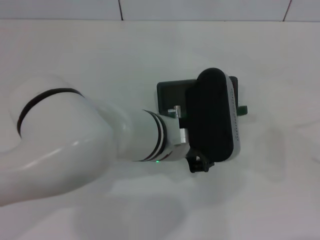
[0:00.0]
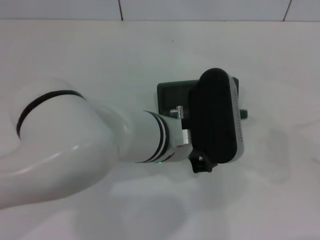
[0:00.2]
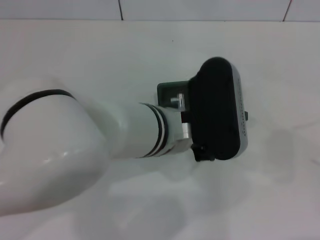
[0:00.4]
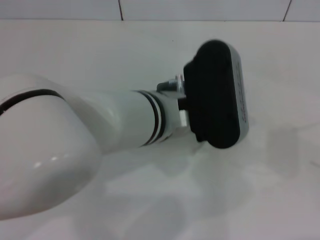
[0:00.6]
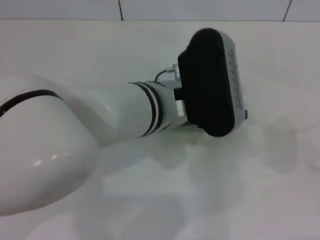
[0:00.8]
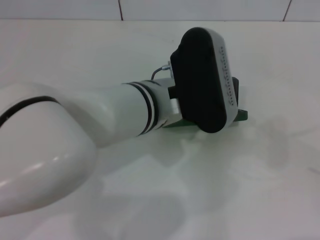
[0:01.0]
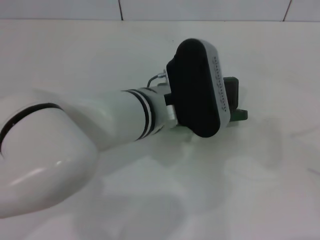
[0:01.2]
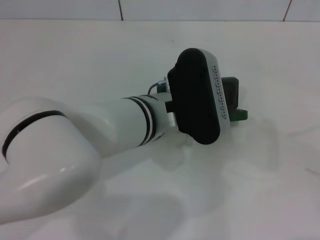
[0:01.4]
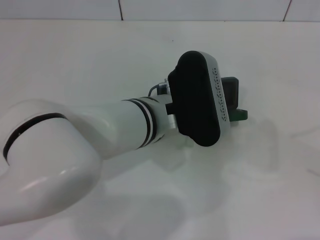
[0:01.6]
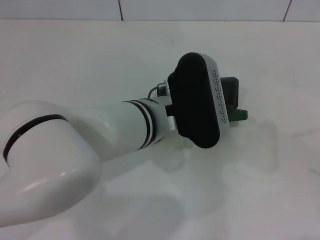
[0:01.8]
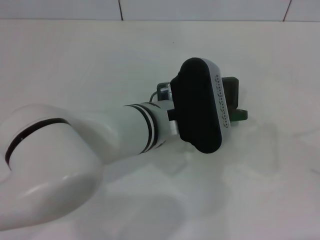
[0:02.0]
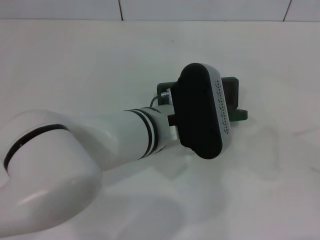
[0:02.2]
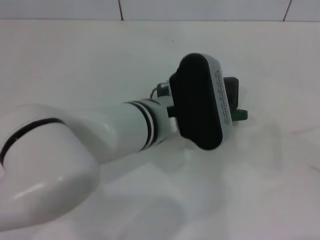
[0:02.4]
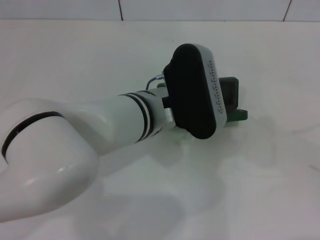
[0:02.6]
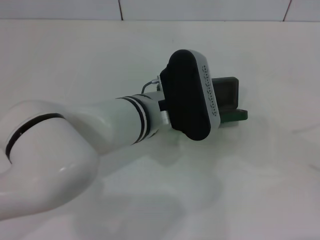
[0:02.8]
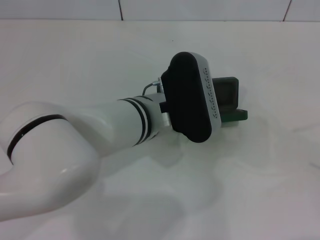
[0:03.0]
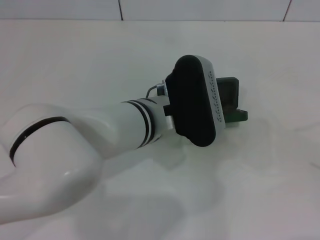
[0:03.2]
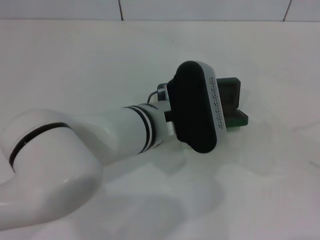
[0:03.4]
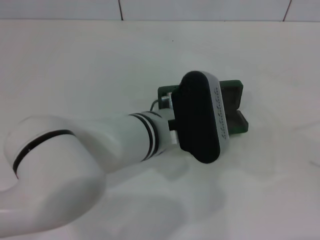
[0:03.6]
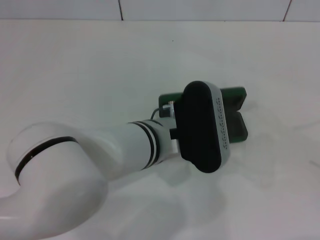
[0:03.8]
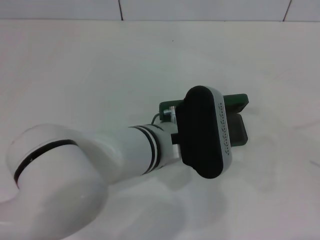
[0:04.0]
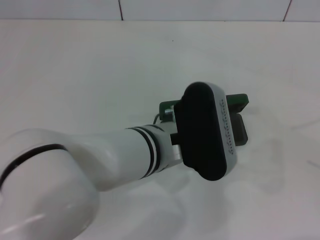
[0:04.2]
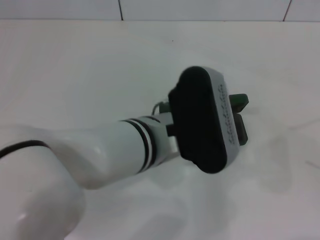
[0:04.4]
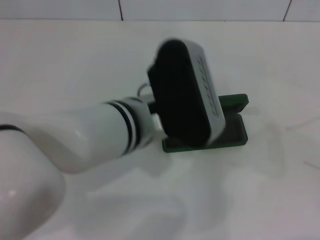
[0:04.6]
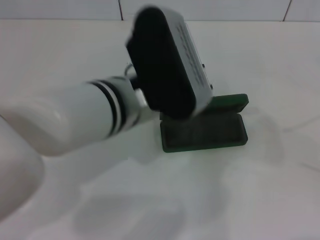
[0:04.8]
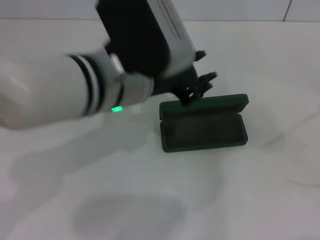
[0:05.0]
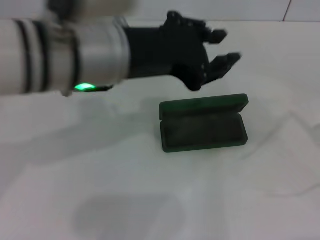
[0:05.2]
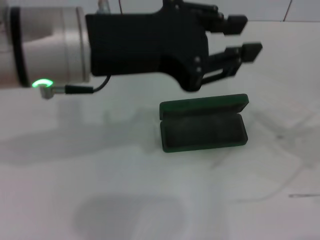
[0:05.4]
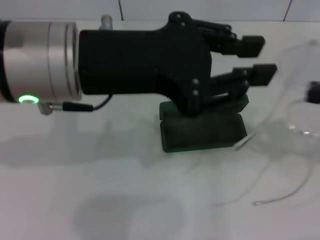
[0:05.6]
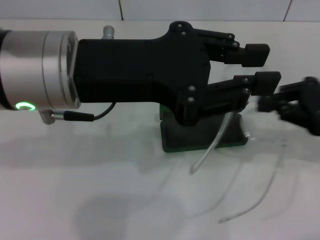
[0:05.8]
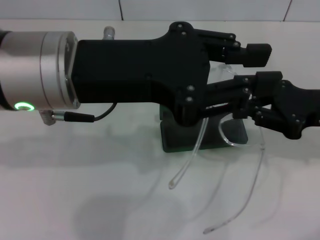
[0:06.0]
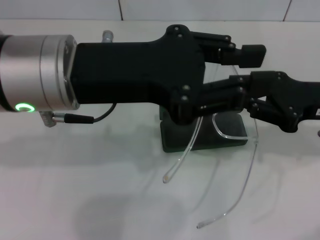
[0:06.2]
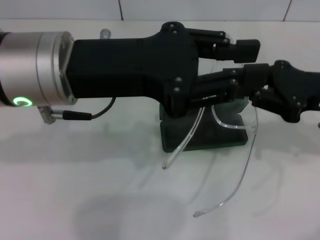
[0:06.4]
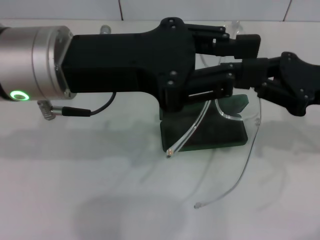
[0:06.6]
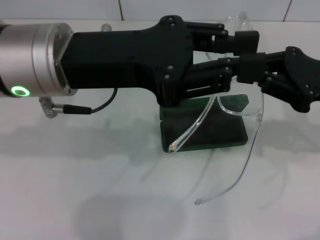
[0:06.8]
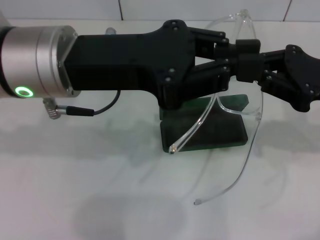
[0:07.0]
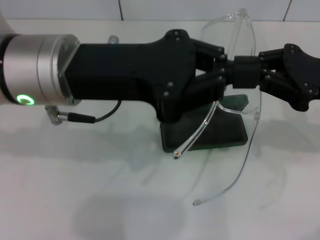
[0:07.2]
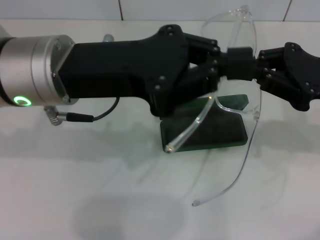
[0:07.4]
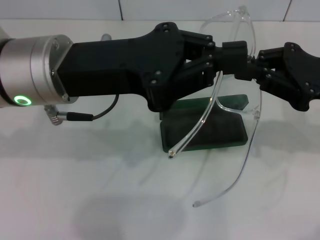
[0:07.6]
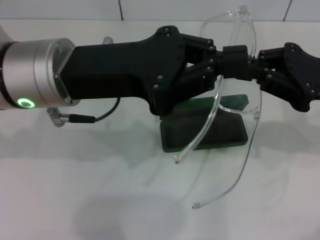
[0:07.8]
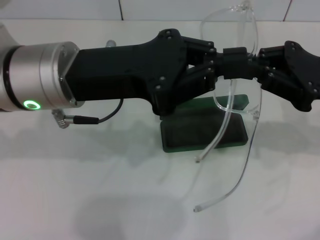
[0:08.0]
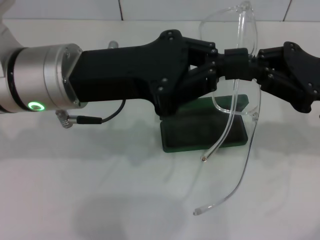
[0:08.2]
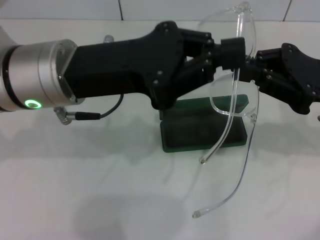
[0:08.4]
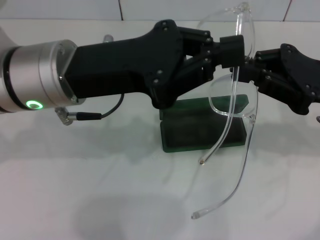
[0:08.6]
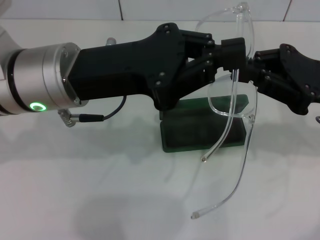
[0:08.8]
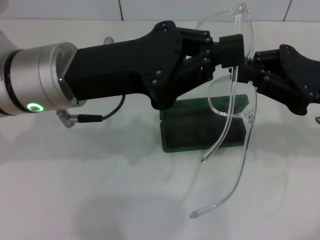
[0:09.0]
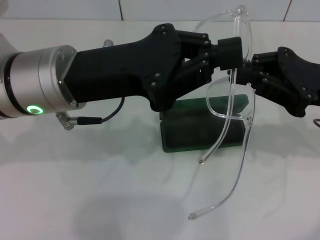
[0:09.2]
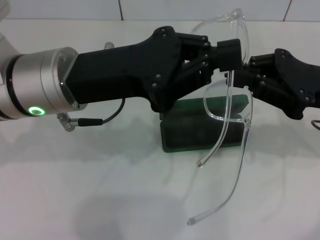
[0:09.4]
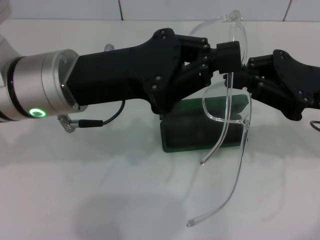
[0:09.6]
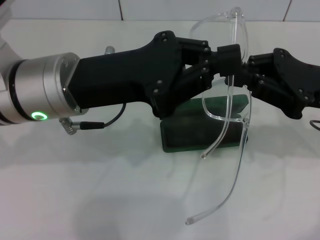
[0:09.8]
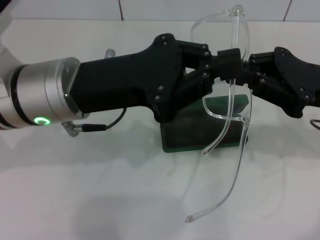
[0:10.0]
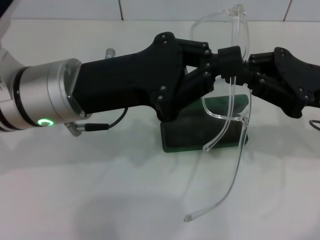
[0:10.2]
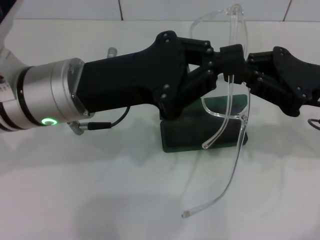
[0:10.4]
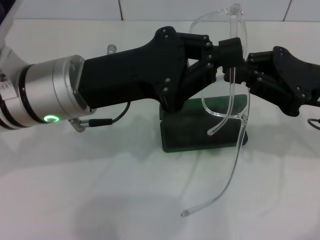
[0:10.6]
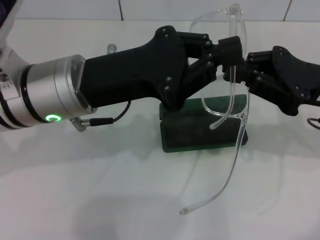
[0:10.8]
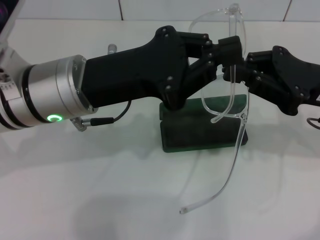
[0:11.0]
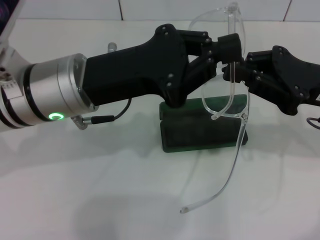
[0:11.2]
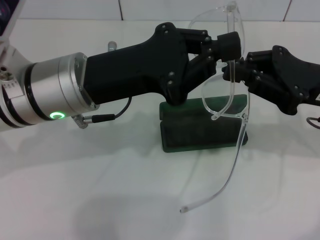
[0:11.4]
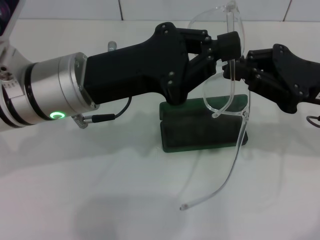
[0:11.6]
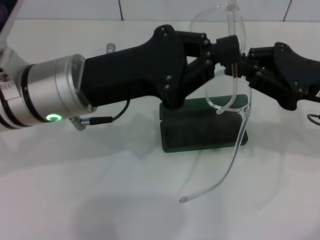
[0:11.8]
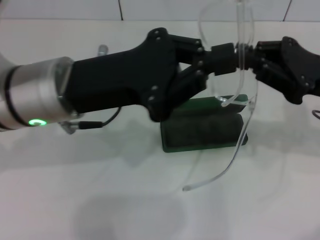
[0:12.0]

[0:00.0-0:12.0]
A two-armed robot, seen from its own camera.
Step, 0:00.0 to 0:04.6: Place the glasses case in the center of the table with your left hand.
0:00.0 to 0:03.0: The grippers move only a little.
0:03.0 to 0:04.4: The left gripper shifts by about 5 cm.
0:04.4 to 0:06.0: The left gripper shifts approximately 15 cm upward and to the left. Meanwhile the right gripper is displaced to the left and forward by approximately 25 cm.
0:06.0 to 0:07.6: The left gripper closes up.
0:07.6 to 0:12.0: The grippers make only small movements.

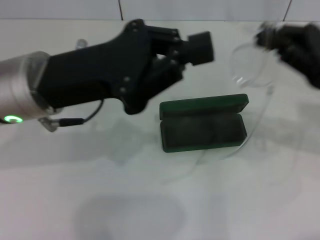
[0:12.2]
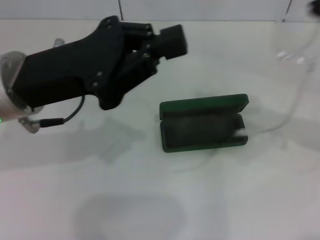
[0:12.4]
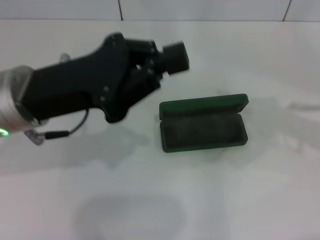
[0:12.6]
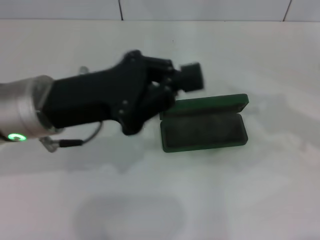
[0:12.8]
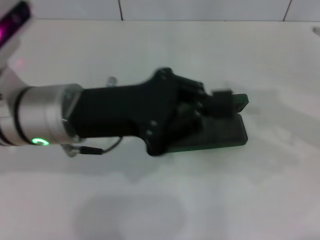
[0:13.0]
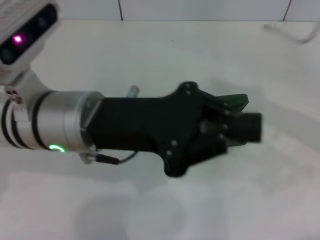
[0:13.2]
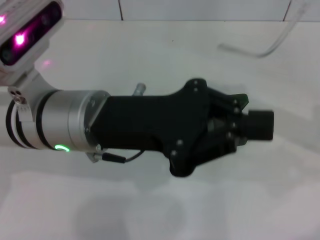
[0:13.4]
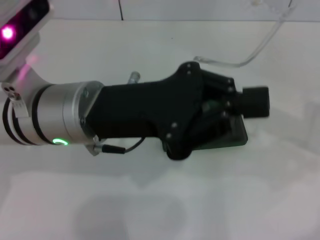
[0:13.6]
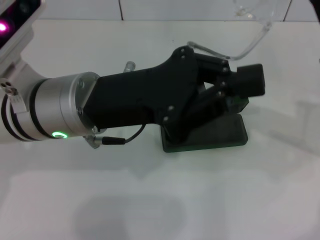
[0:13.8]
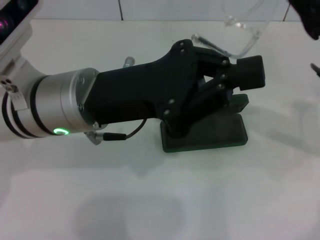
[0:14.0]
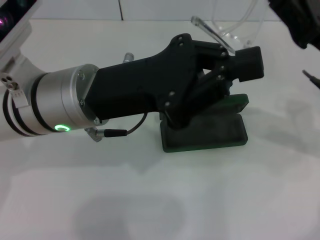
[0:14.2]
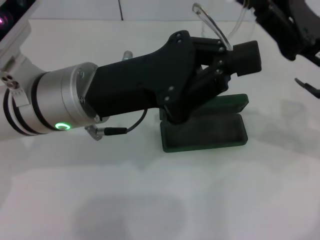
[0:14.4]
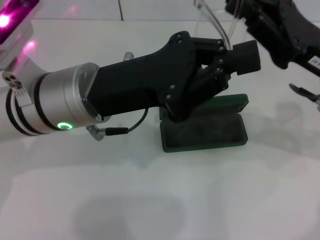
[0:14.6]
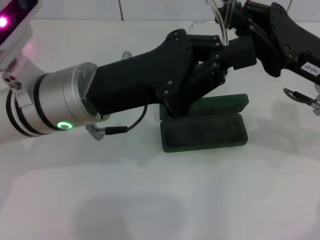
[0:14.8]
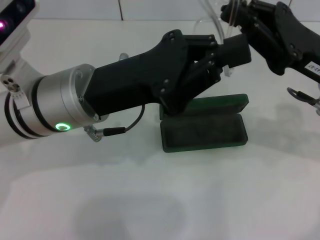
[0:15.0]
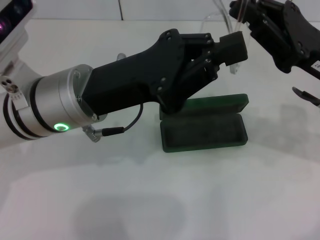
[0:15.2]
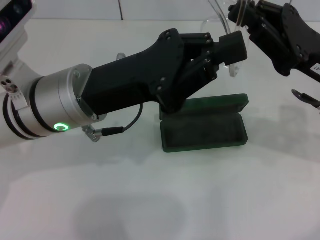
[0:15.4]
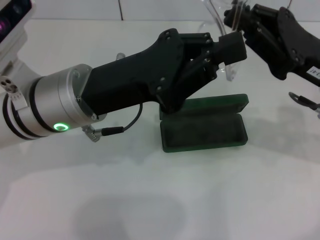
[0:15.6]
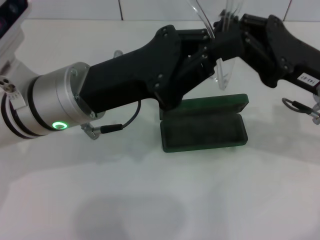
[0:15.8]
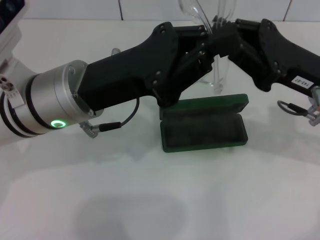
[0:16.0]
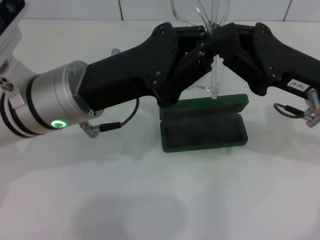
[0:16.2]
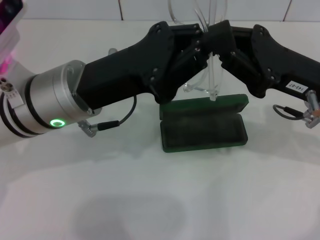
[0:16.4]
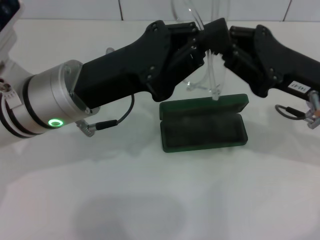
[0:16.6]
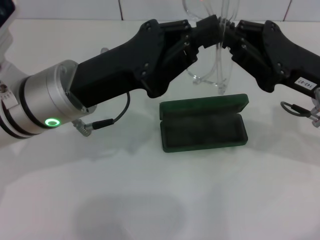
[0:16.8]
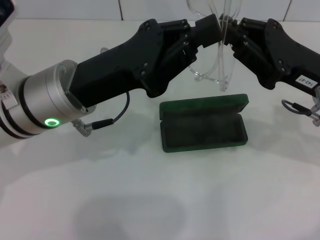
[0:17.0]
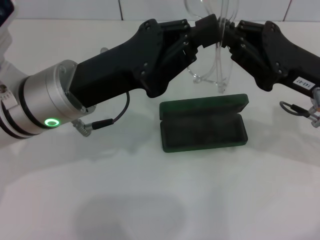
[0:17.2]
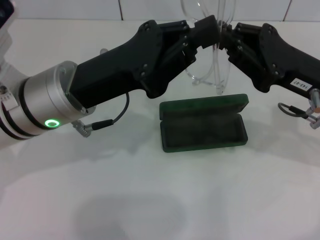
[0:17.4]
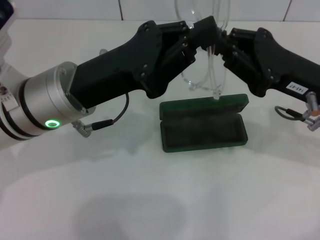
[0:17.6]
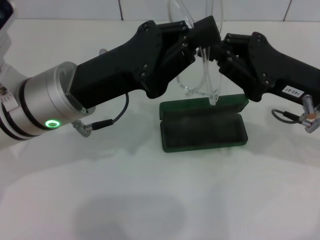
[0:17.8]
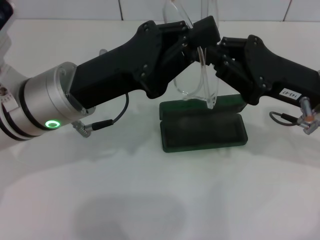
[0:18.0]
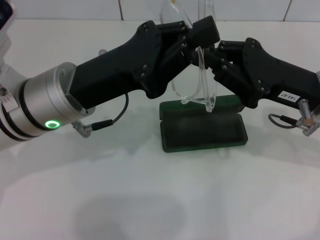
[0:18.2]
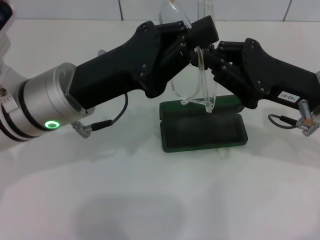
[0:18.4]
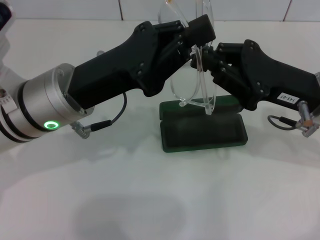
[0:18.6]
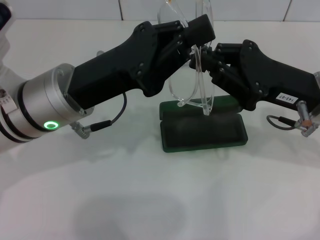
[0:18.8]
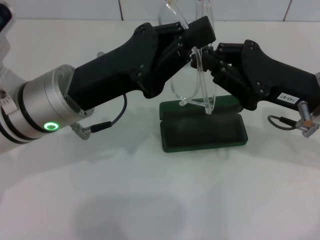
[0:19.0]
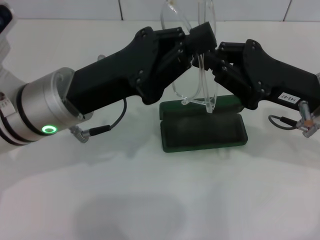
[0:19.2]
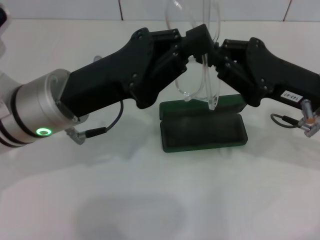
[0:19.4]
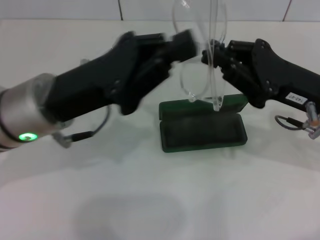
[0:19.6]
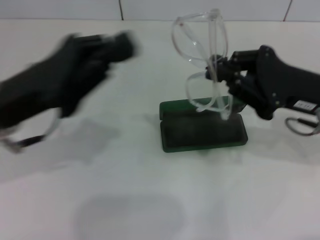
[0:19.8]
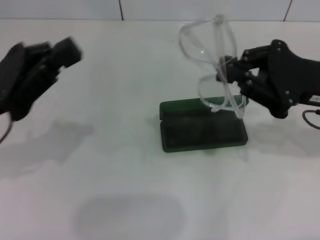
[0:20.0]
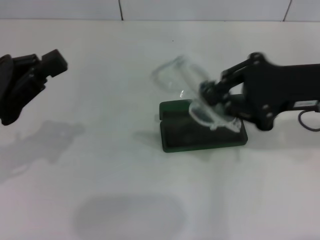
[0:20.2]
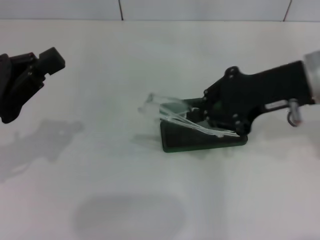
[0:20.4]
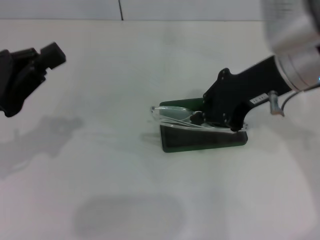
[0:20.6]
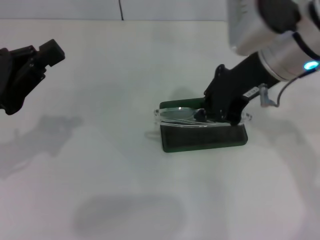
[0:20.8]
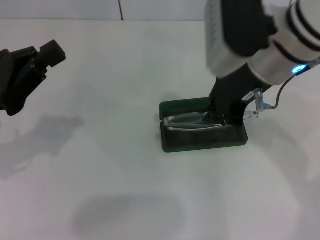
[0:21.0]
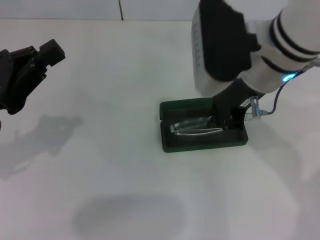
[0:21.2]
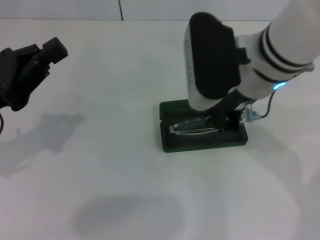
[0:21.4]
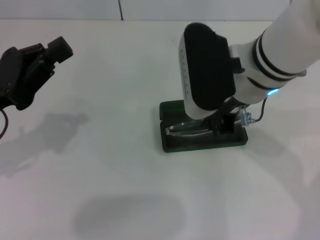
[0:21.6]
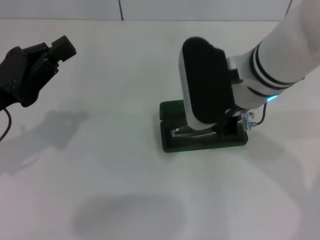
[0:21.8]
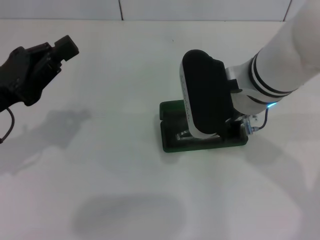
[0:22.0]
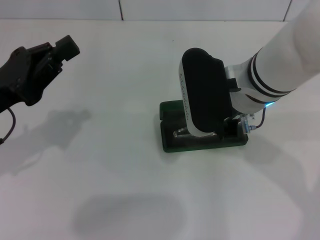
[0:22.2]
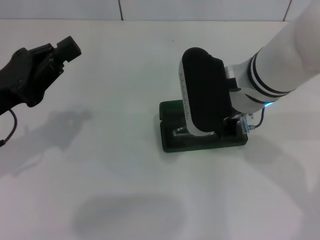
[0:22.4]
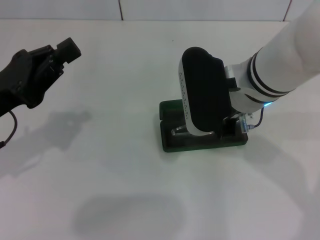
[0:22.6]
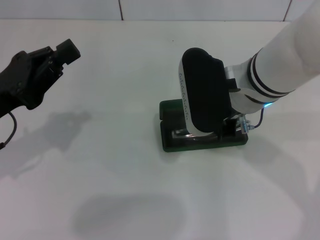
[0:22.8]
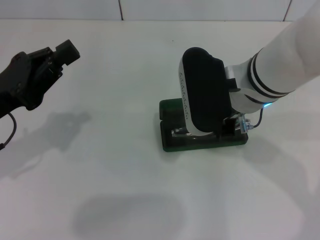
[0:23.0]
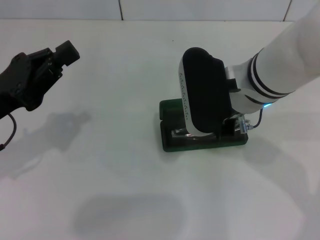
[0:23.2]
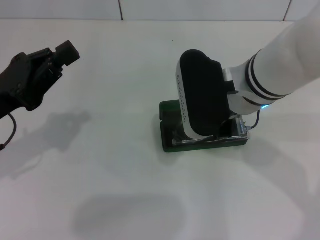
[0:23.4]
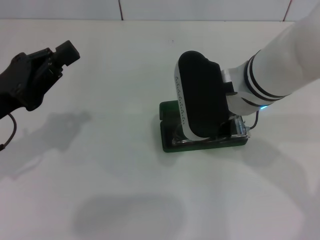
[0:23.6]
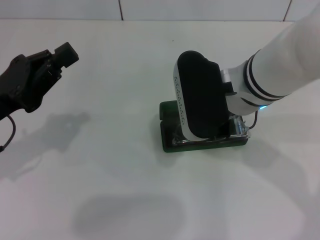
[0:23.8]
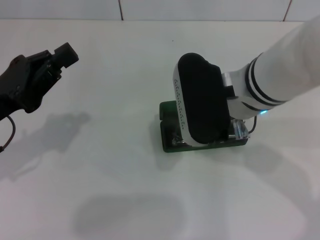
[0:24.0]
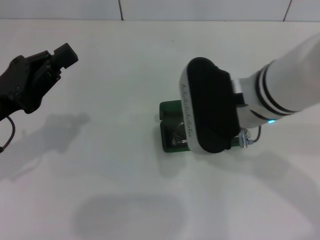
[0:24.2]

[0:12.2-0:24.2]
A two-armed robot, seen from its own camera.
Step, 0:12.2 to 0:19.2: Fold the frame with your left hand.
0:16.6 to 0:18.2: Both grippers stay put.
0:18.2 to 0:19.8: The left gripper heads to the left, covering approximately 5 cm.
0:19.8 to 0:21.2: The right gripper heads to the left and upward, covering approximately 15 cm; the left gripper shifts about 5 cm to the left.
0:21.2 to 0:24.2: The grippers stay close to where they were, moving slightly.
